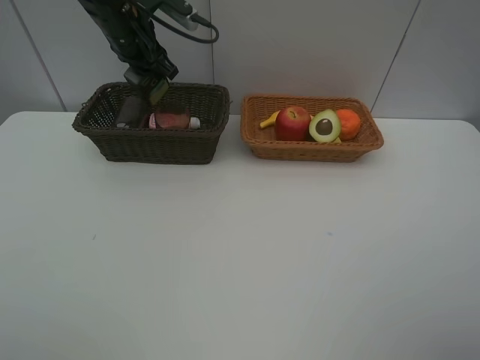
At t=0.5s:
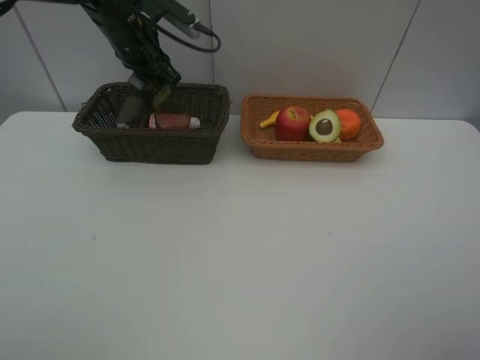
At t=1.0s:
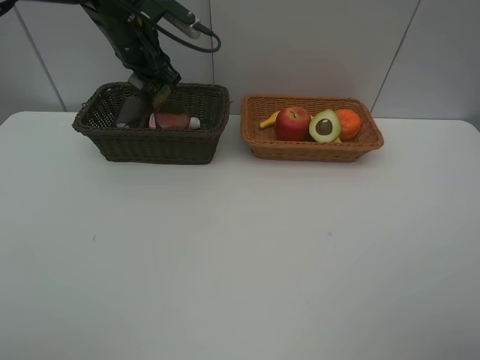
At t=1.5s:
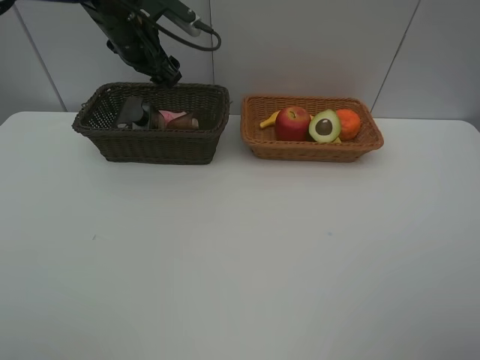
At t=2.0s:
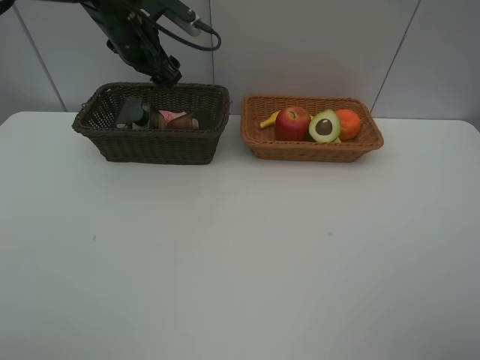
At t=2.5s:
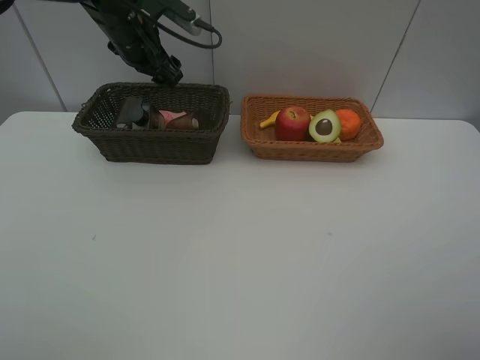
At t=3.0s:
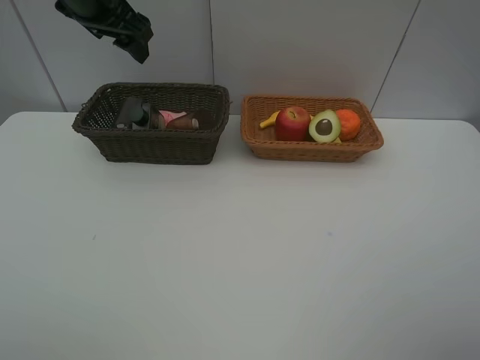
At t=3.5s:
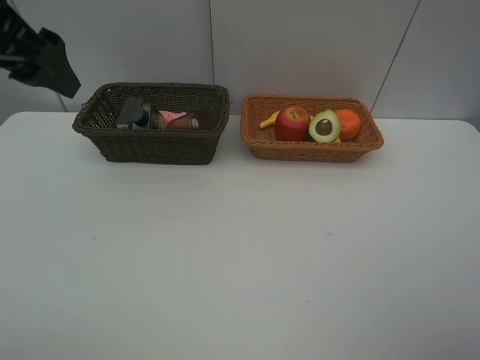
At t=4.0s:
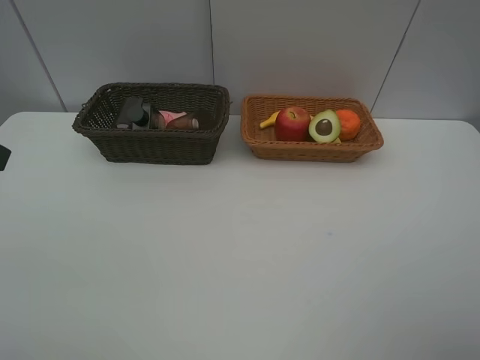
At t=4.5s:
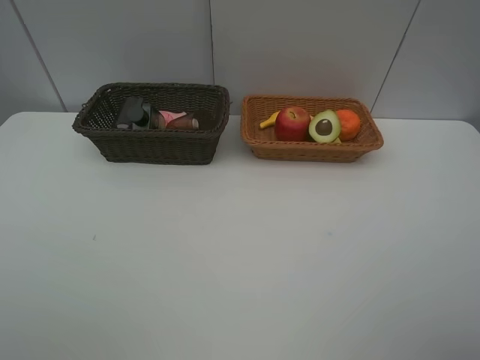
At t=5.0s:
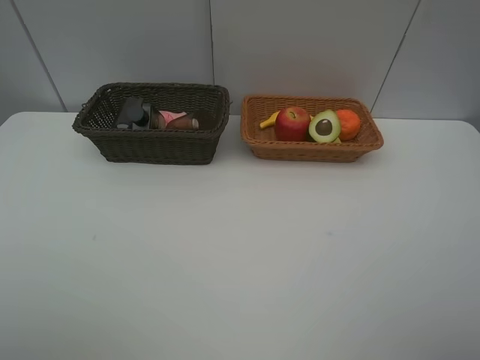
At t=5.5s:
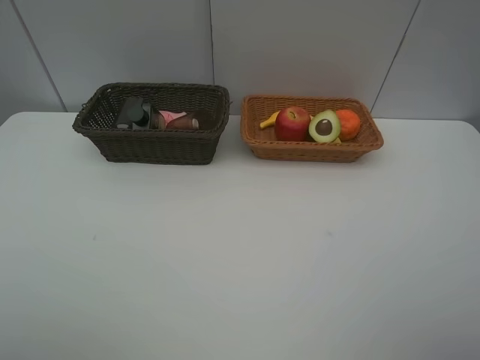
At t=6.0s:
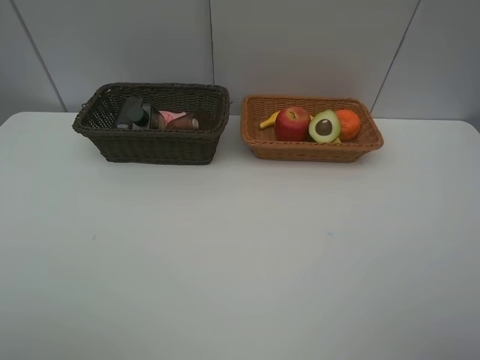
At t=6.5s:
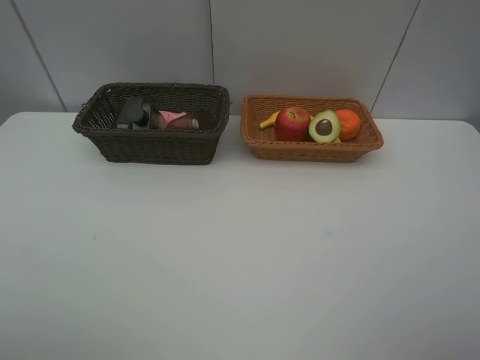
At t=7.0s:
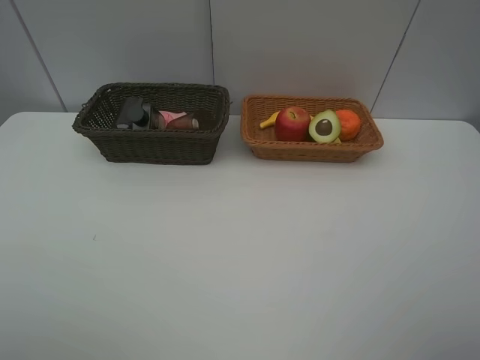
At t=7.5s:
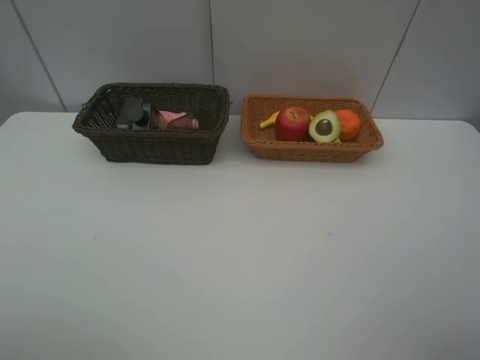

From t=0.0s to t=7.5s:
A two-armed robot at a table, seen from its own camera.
Task of the whole recording: Place multiple objects separately in different baskets.
From t=0.0s to t=2.0s: The left gripper opens up.
From t=2.0s to t=4.0s: The left gripper travels backward by about 35 cm.
